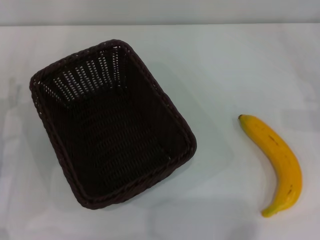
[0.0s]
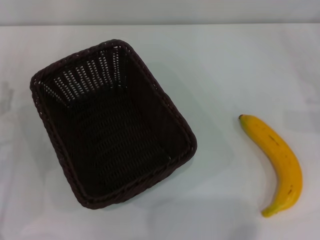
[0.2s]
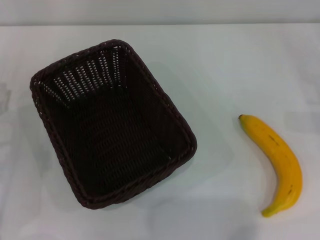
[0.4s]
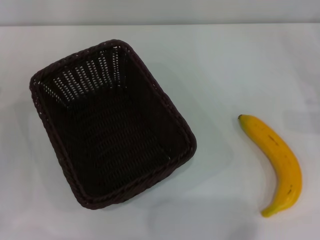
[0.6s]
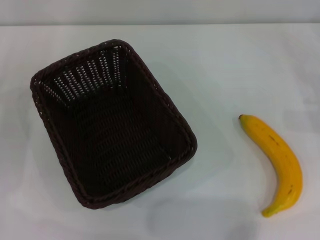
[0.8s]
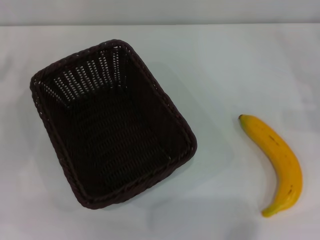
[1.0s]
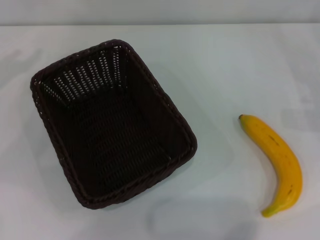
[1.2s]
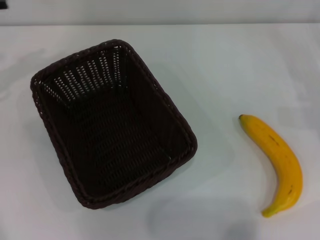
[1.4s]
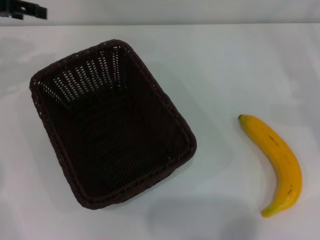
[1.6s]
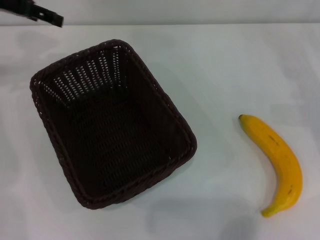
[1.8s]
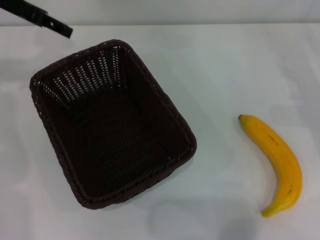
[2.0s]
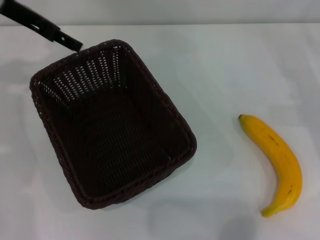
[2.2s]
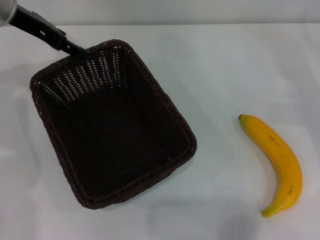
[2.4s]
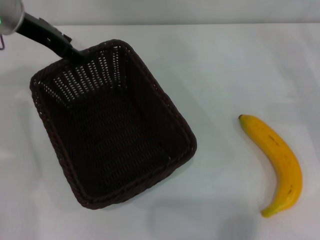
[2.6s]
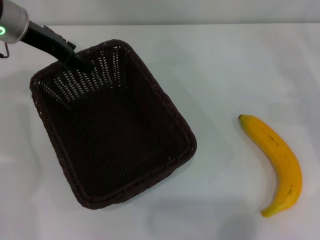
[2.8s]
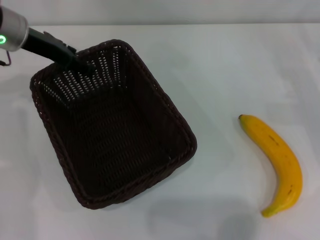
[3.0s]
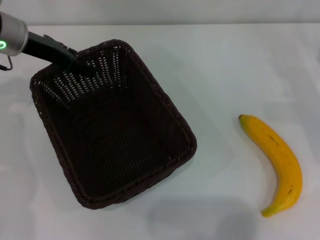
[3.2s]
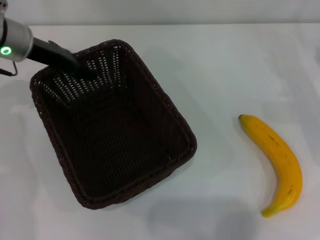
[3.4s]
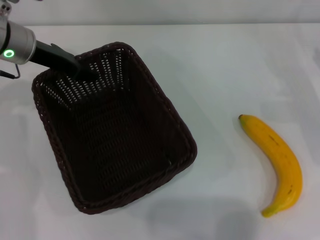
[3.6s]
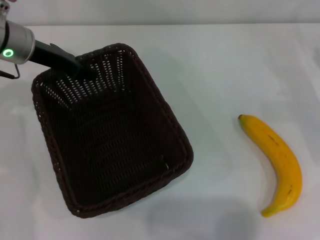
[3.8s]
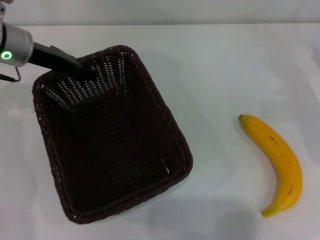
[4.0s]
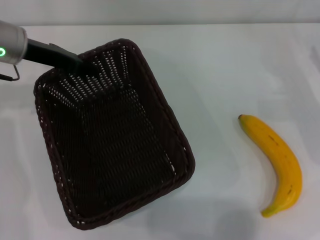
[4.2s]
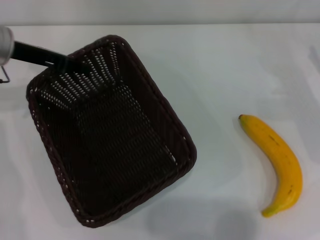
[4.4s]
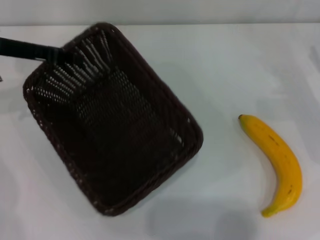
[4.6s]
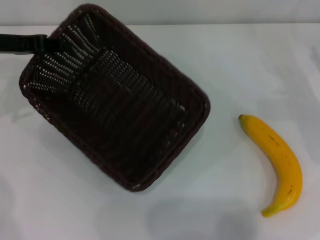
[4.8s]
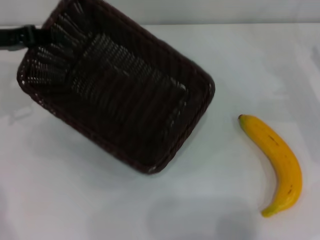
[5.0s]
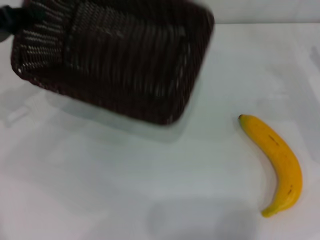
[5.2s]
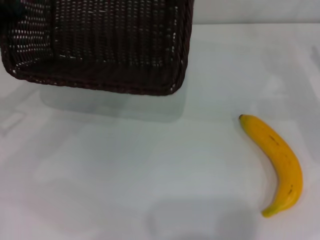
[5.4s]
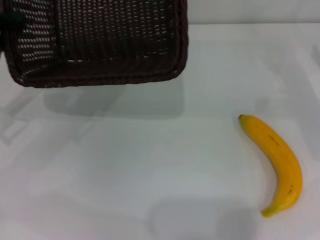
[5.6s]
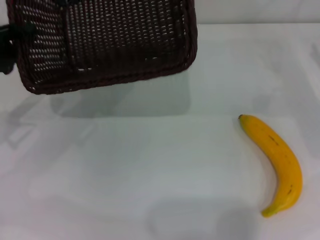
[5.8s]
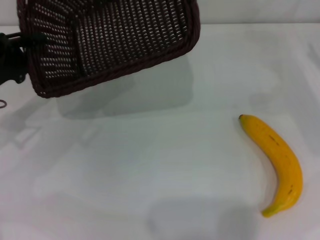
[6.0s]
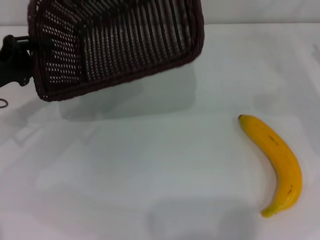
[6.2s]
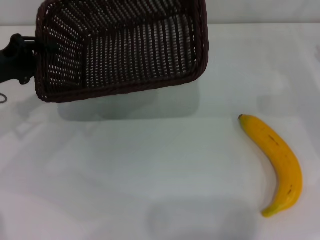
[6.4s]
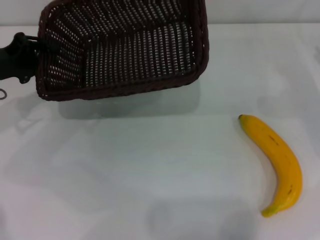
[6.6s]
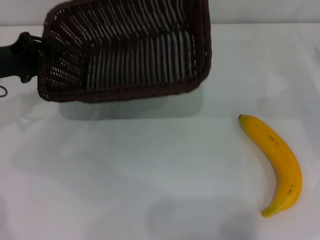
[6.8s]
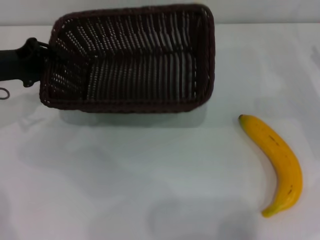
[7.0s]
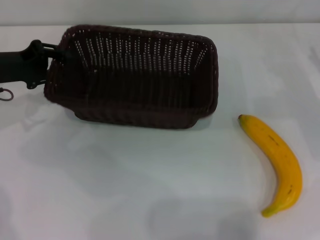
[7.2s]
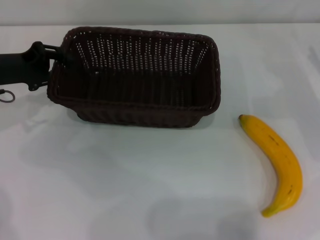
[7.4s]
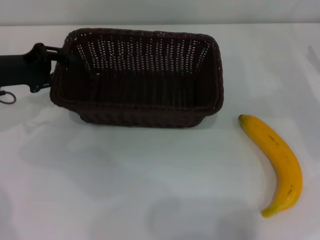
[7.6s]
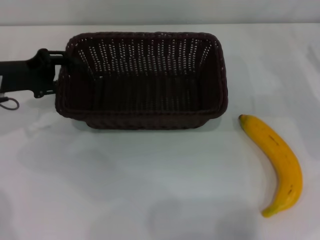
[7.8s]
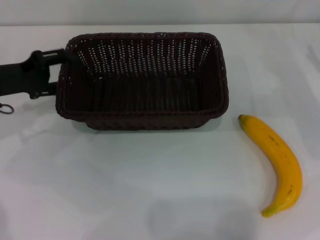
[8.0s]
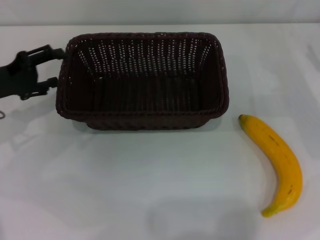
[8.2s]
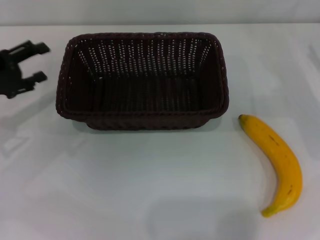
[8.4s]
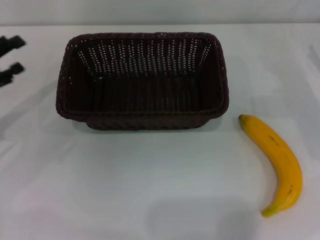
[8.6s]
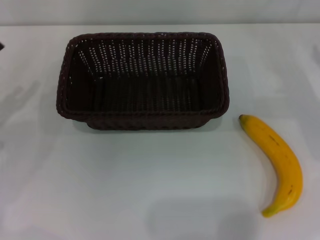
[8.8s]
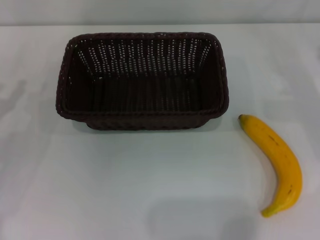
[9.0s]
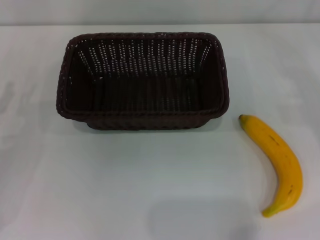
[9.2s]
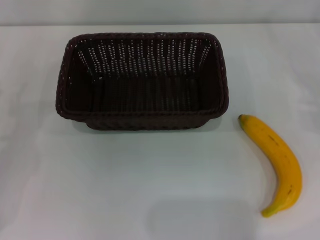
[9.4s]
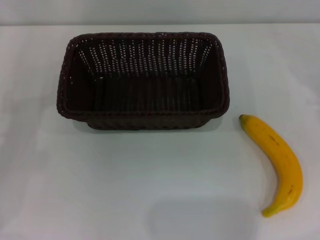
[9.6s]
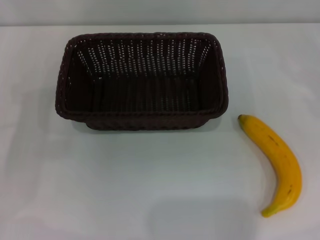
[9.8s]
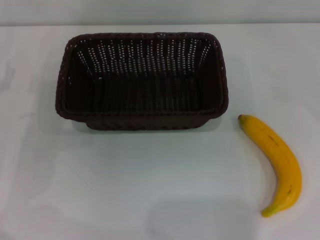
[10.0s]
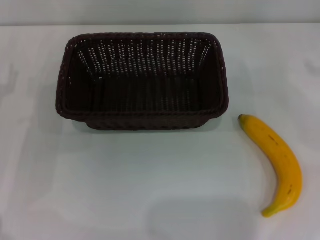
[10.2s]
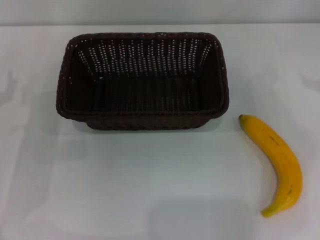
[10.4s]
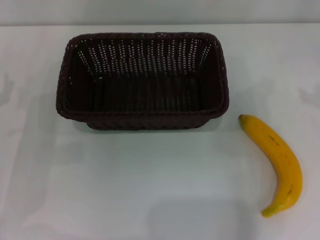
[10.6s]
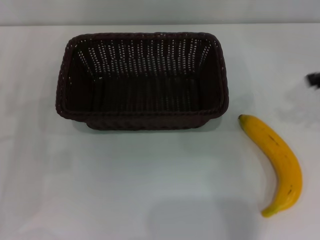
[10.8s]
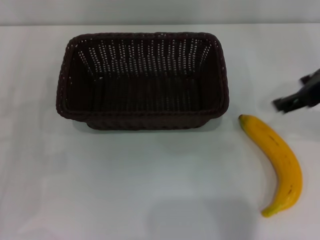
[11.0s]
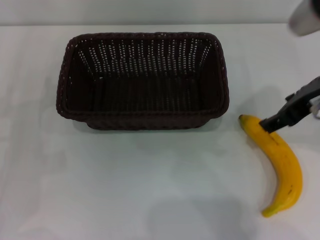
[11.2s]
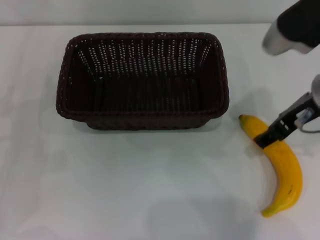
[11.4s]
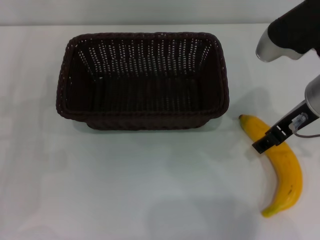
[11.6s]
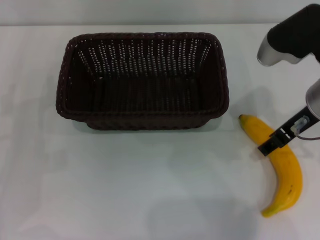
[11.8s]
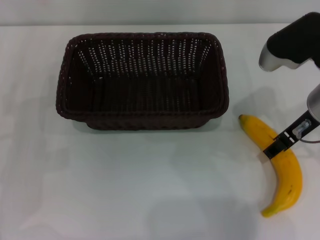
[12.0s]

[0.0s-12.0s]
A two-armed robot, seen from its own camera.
Step, 0.0s to 4.4s: Pick up the dark basket with the left gripper.
Step, 4.8s to 8.0s: Place the dark basket in the center of view with the left gripper.
0.0s to 1.6s: The left gripper travels upward and forward by about 25 cm.
1.6s to 3.0s: The left gripper travels to the right and downward by some 10 cm.
3.0s to 4.4s: The left gripper closes.
4.4s to 6.0s: The left gripper moves backward, downward and to the left, approximately 10 cm.
6.0s to 7.6s: The left gripper changes place by about 5 cm.
7.6s to 9.0s: The left gripper heads backward and to the left, covering roughly 10 cm, and opens its fingers.
10.4s to 12.0s: The right gripper moves to the left and downward, roughly 20 cm.

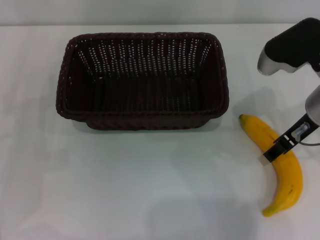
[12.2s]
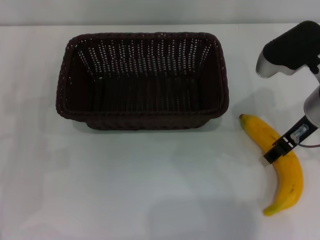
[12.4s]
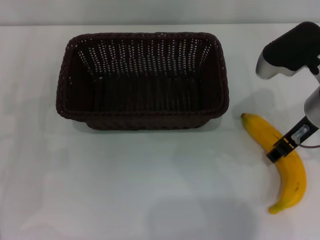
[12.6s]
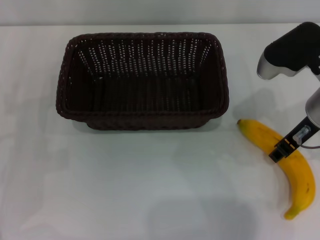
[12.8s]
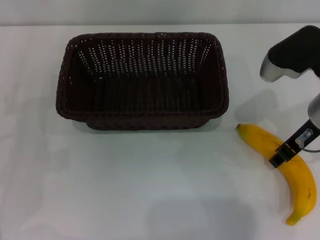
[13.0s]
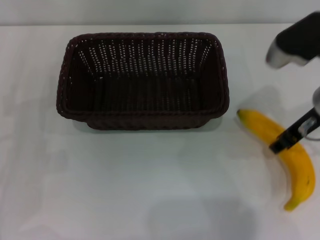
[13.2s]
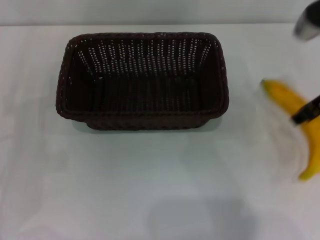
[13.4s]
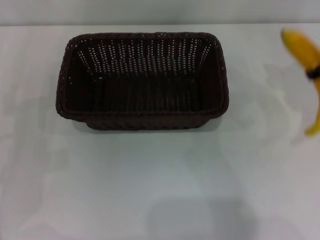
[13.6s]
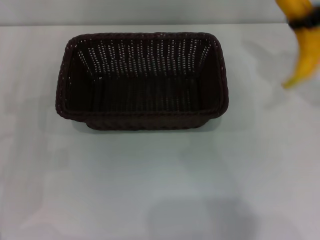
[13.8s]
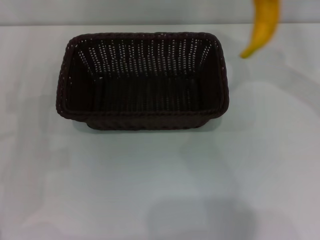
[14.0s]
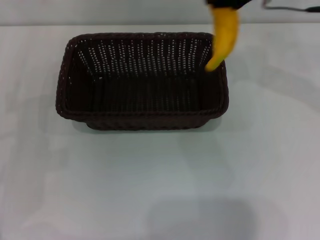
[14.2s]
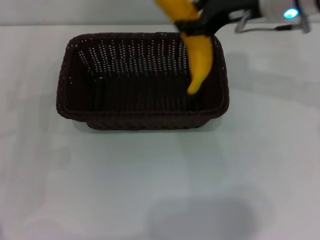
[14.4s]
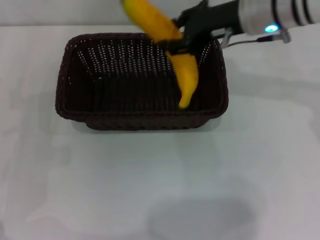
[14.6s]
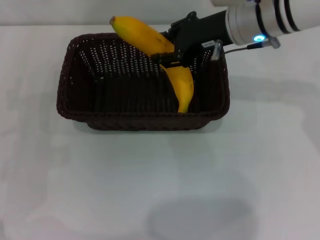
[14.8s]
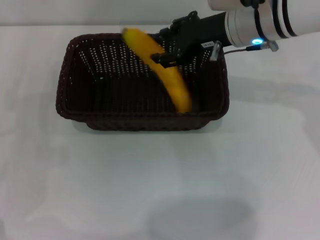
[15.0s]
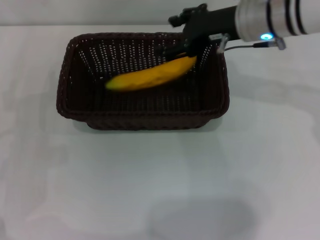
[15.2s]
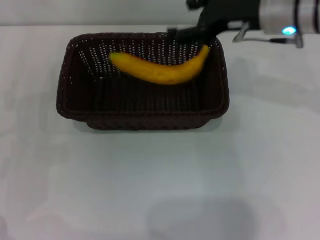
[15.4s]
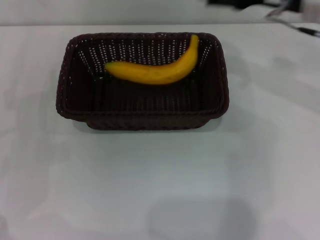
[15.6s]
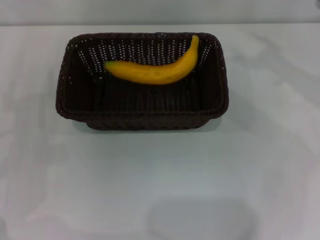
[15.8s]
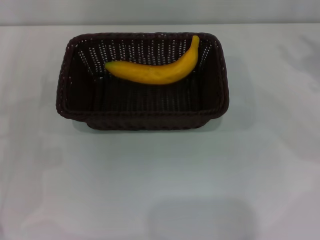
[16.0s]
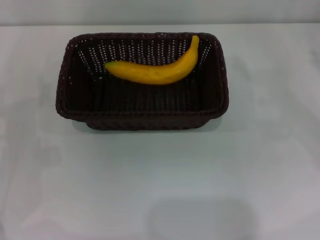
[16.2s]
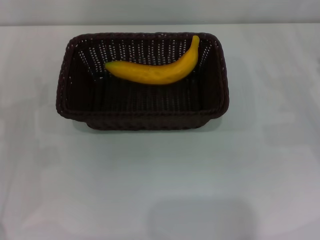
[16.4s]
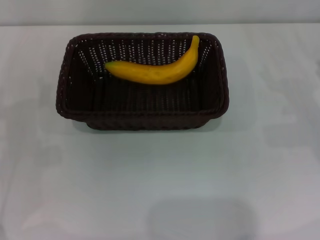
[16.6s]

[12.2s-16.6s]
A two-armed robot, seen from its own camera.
Step, 13.4s to 15.0s: Place the banana into the dark basket with the right gripper.
12.2s to 13.6s: The right gripper goes roughly 10 cm upward and to the right, and closes up.
13.6s to 15.2s: The right gripper heads to the left and forward, covering some 15 cm, and opens its fingers.
15.2s to 16.6s: The right gripper goes roughly 30 cm to the right, downward and backward, and opens.

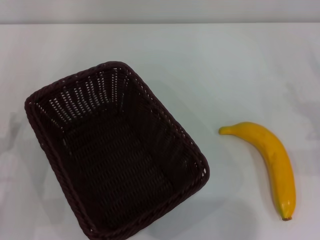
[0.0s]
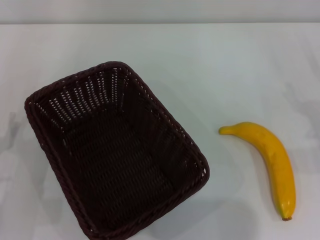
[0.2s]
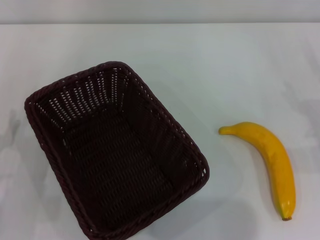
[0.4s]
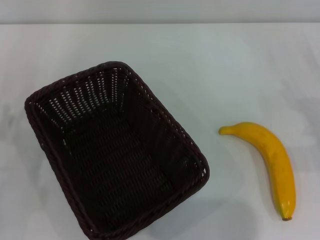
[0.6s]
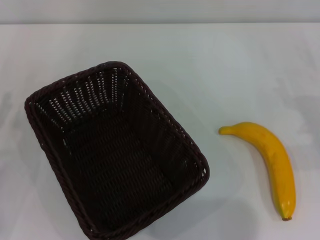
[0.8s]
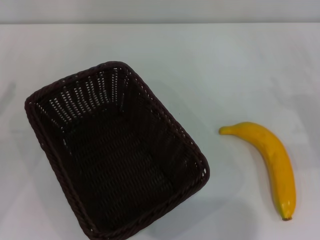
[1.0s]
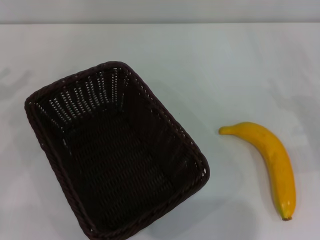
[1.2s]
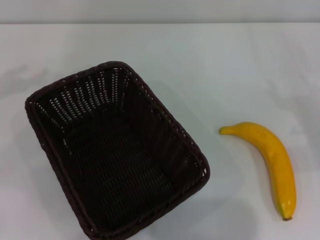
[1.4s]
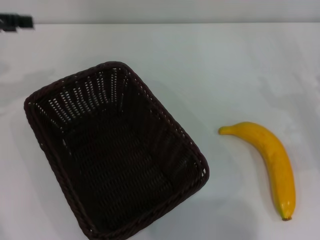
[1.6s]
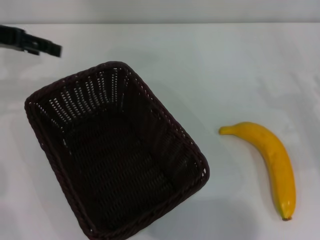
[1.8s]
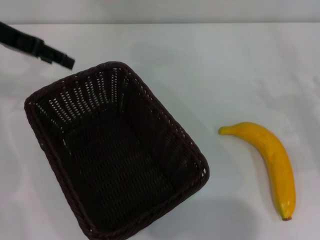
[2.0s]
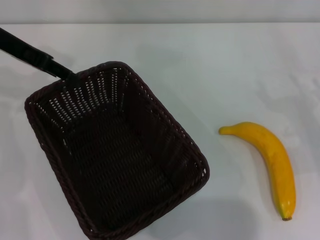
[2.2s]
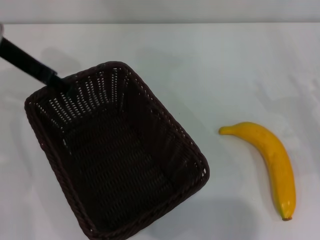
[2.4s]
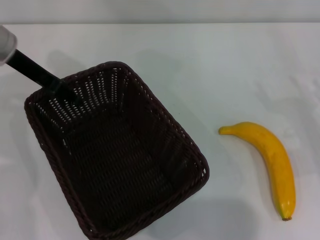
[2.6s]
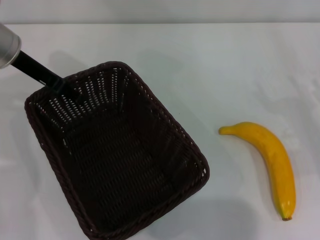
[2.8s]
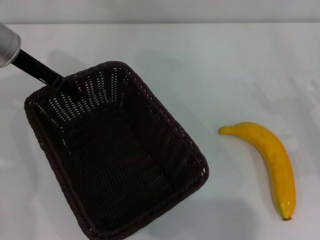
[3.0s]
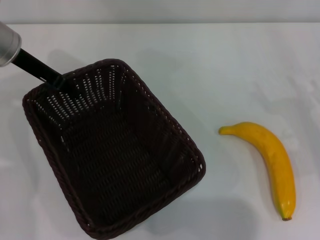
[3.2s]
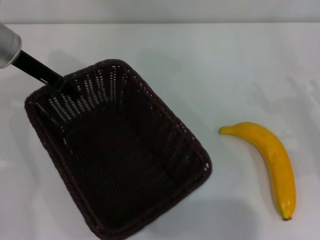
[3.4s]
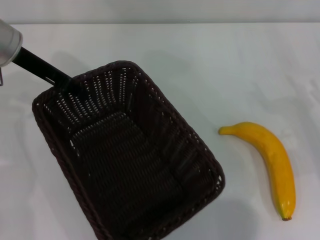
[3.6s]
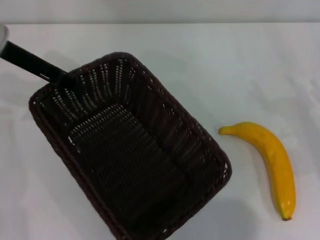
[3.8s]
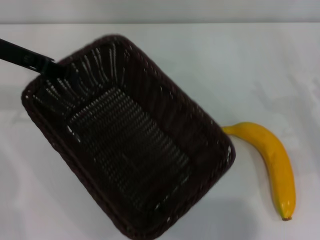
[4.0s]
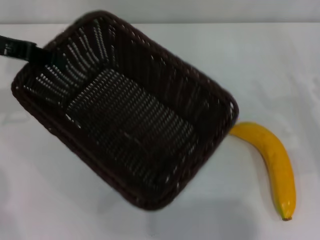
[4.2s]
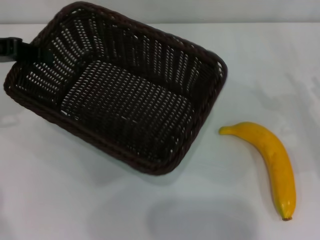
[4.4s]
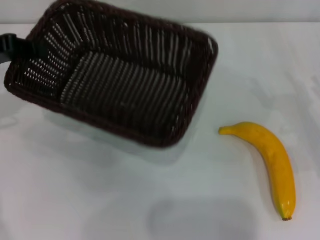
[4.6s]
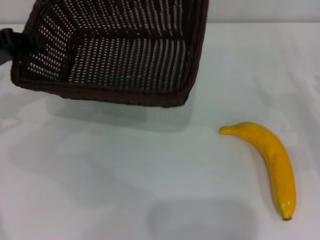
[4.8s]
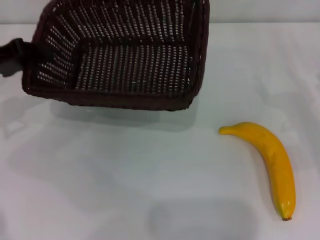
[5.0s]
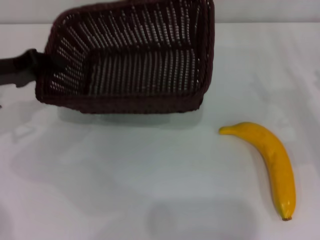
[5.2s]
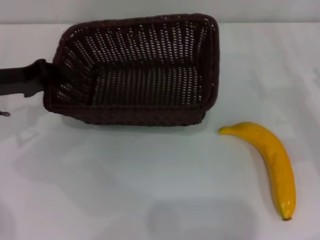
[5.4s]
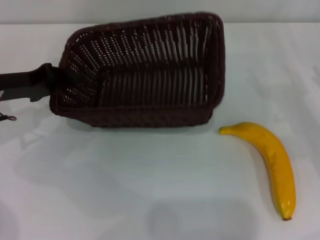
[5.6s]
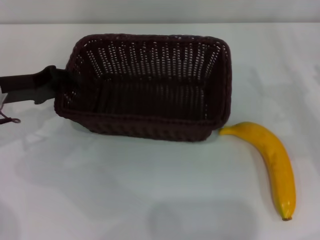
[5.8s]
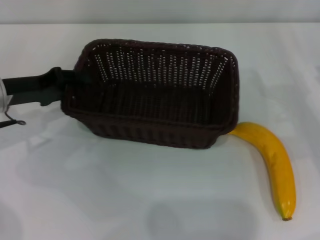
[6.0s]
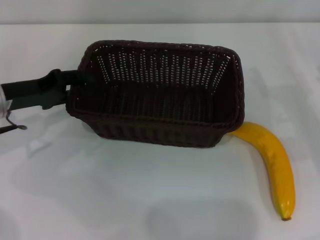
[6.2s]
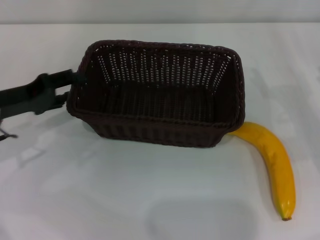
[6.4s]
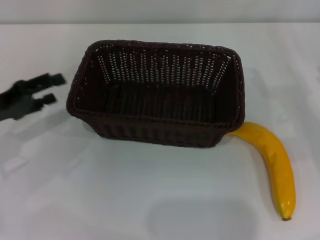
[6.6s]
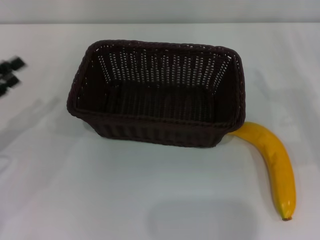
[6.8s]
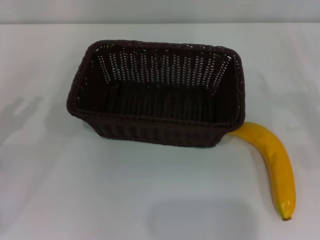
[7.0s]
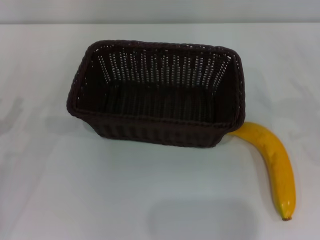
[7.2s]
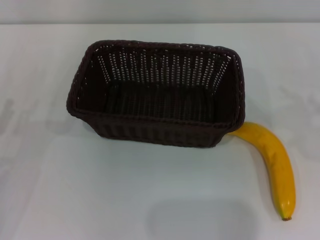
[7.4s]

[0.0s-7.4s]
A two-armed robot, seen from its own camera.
Step, 0.0s to 4.2s: Pick up the dark basket with the left gripper.
Step, 4.4s to 6.6s: Place the dark basket in the center of view with the left gripper.
0.0s to 1.4s: The left gripper moves upward, forward and to the left, some 25 cm.
1.4s to 3.0s: The left gripper is displaced to the right and forward by approximately 15 cm.
3.0s to 4.4s: The left gripper shifts approximately 10 cm to the left, and closes.
4.4s to 6.0s: The left gripper shifts approximately 10 cm downward.
6.0s to 7.4s: The right gripper ends up some 5 cm from where it was. The left gripper is displaced backward, to the left and downward by approximately 15 cm, and opens.
